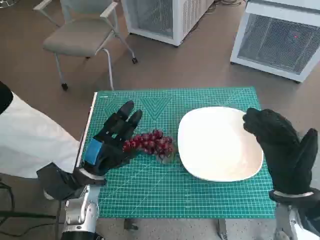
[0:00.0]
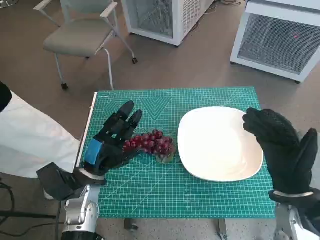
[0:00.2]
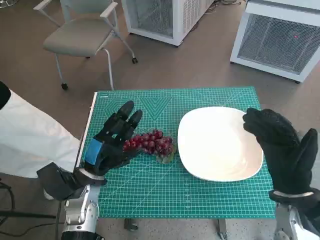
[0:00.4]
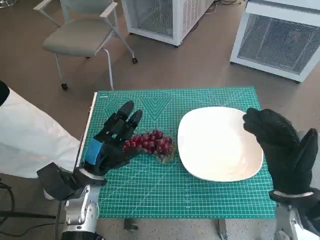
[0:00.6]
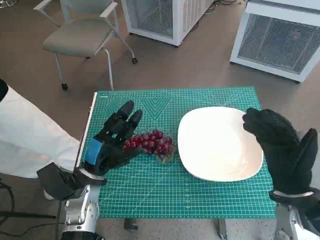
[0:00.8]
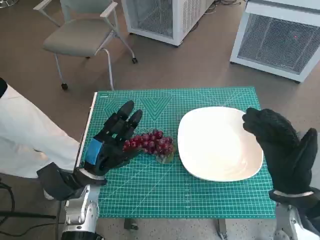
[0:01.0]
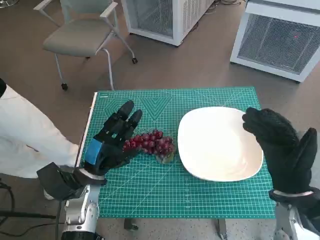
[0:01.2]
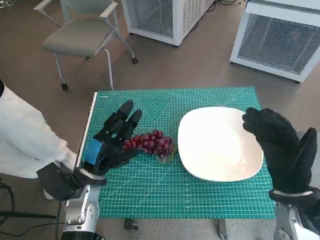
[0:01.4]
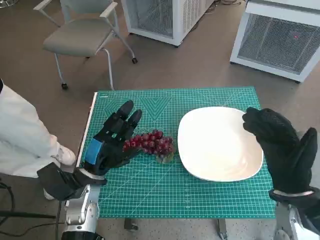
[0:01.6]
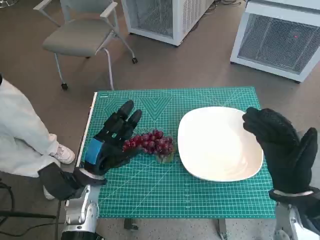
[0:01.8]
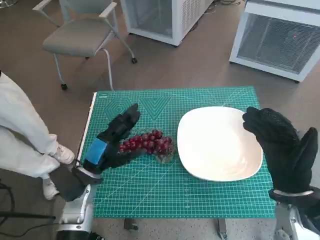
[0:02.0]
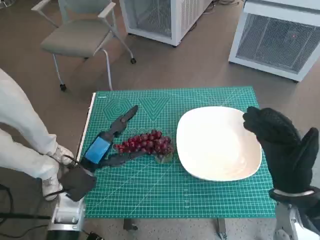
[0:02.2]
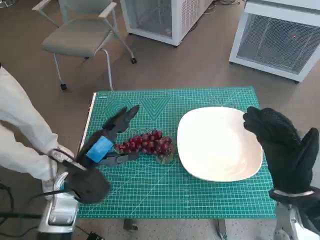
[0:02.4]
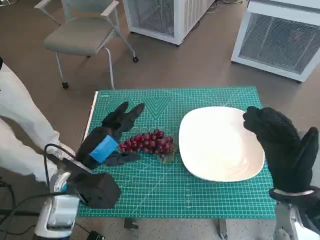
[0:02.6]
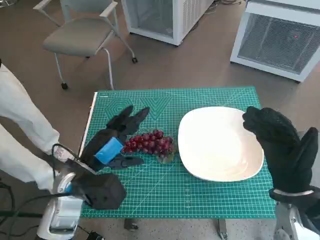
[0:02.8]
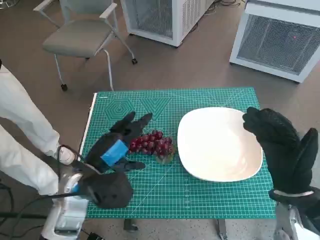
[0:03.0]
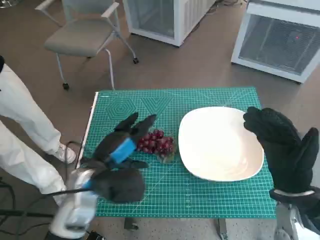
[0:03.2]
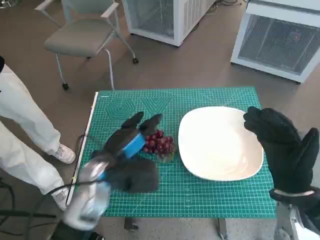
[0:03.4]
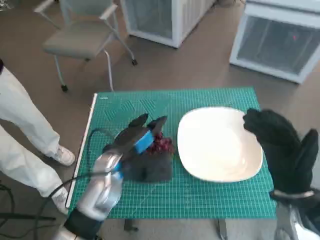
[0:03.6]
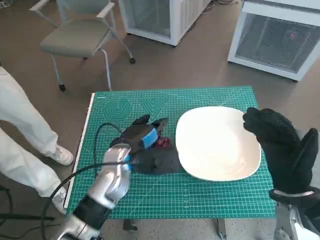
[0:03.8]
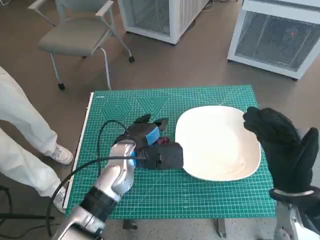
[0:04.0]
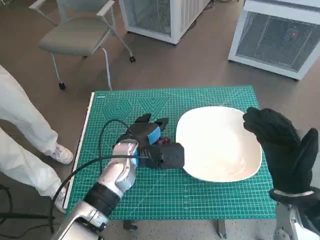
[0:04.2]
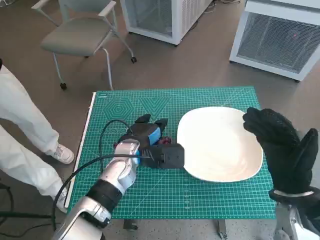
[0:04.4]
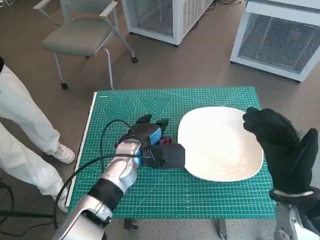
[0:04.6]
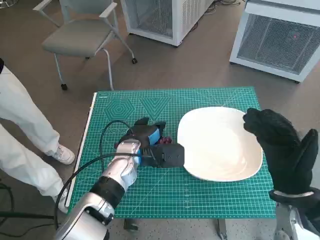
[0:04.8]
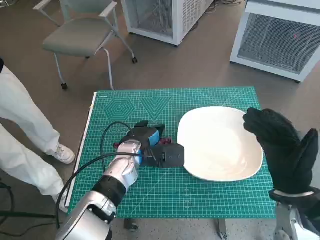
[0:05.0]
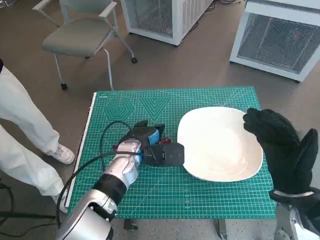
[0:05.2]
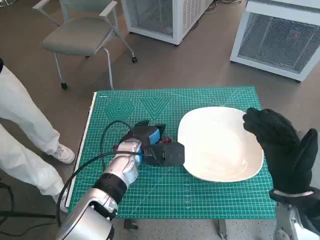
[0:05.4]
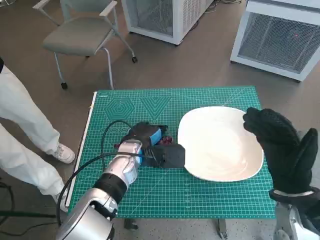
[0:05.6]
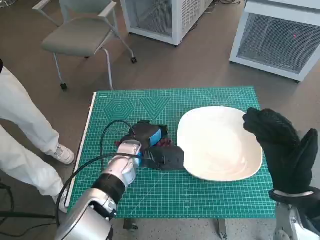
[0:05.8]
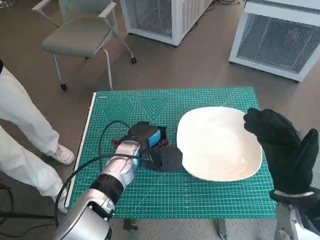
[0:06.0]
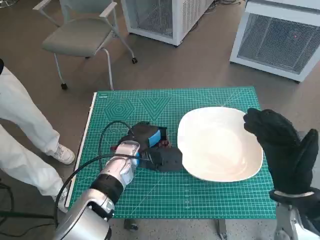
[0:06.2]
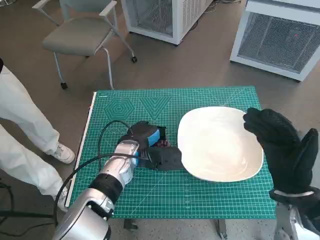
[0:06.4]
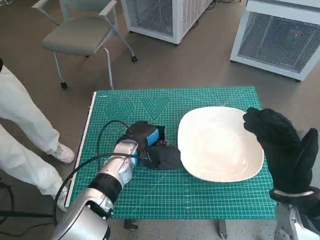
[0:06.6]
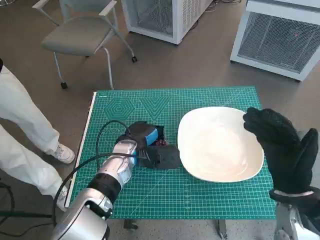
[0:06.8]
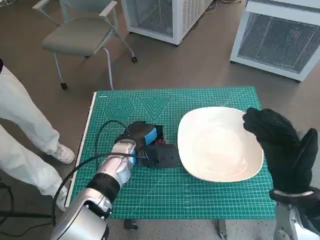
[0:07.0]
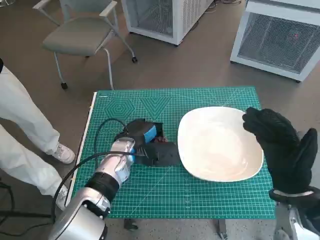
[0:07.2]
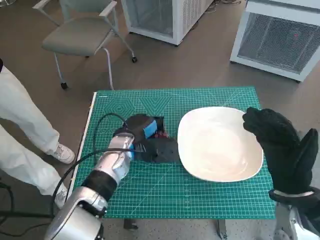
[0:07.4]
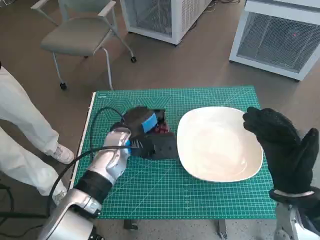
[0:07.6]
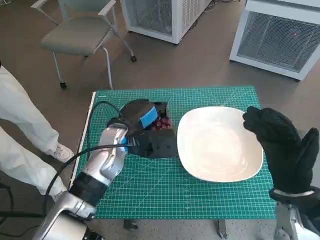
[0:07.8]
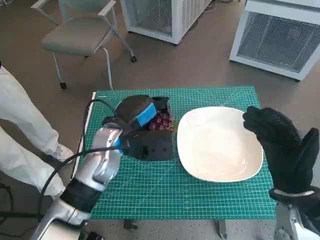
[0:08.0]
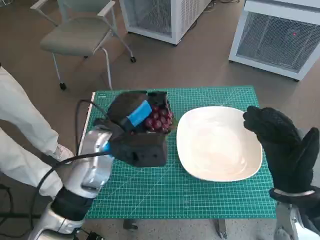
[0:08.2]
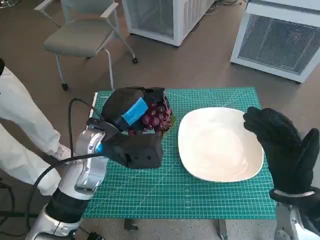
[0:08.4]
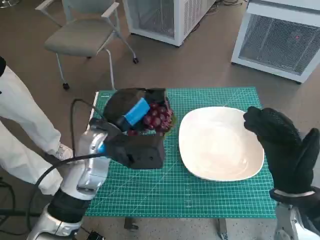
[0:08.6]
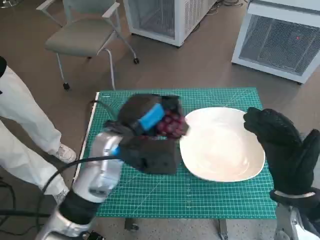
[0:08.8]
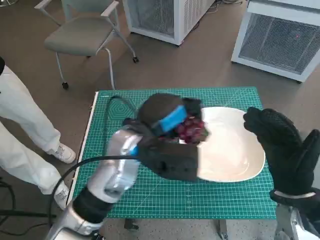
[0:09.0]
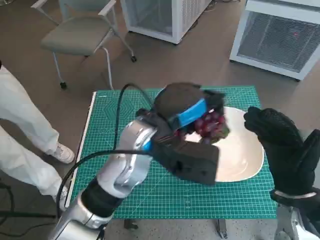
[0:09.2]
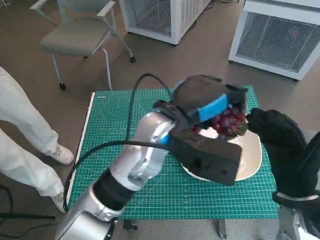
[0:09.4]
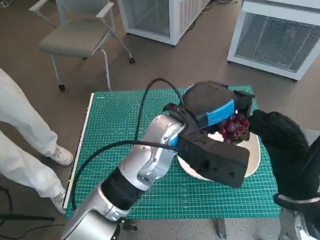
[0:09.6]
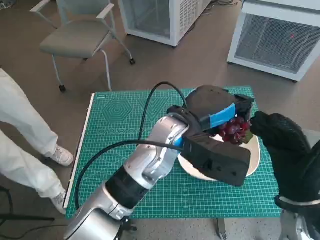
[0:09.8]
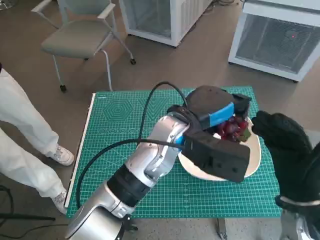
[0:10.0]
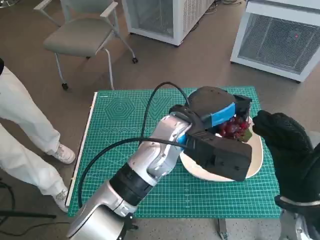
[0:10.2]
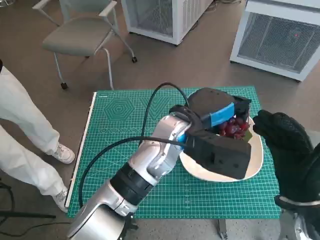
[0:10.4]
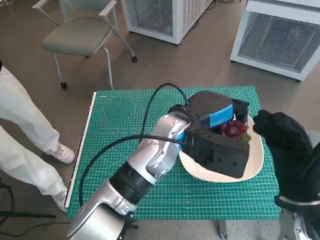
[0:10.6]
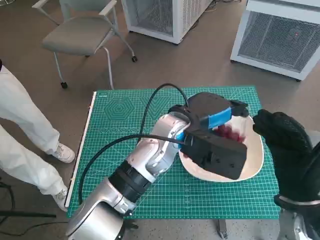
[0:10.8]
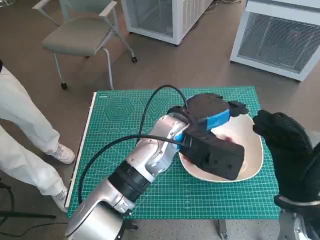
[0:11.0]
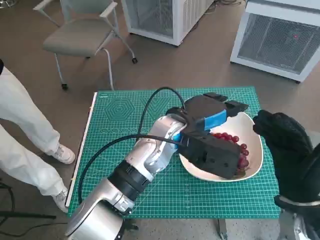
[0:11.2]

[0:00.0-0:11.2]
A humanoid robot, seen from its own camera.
Task of the whole recording: Pick up the grapes and put them on the plate.
Step, 0:00.0 to 0:05.8: Grasp the grapes with left hand.
Step, 0:06.2 to 0:10.6: Place the grapes in the plate with left hand.
0:01.6 to 0:03.2: The left hand shifts some 5 cm upward.
0:03.2 to 0:04.8: The left hand heads forward and to the right, covering about 10 cm.
0:04.8 to 0:06.4: Neither hand changes place.
0:06.4 to 0:08.0: The left hand is displaced upward by some 10 cm.
0:08.0 to 0:09.6: The left hand shifts about 15 cm to the right and upward.

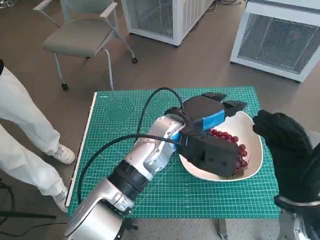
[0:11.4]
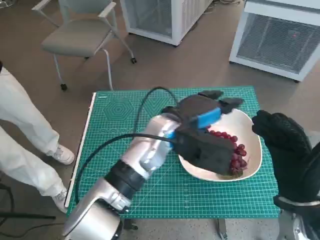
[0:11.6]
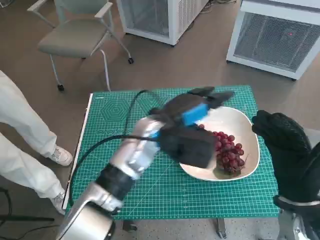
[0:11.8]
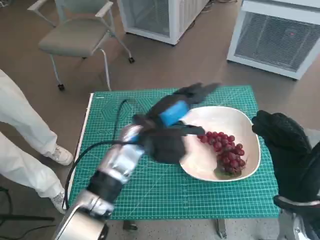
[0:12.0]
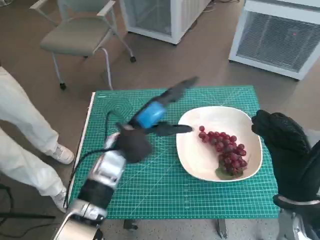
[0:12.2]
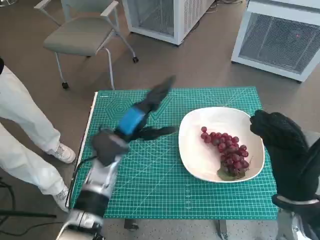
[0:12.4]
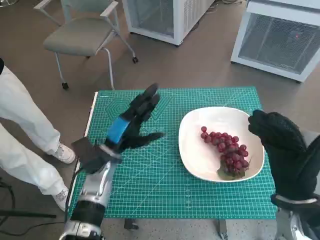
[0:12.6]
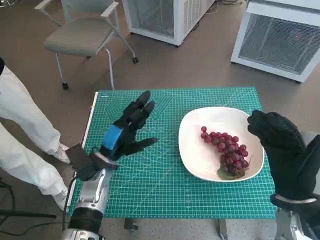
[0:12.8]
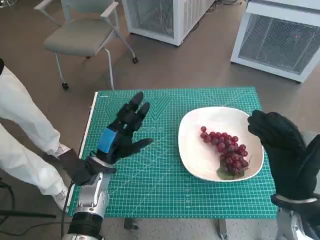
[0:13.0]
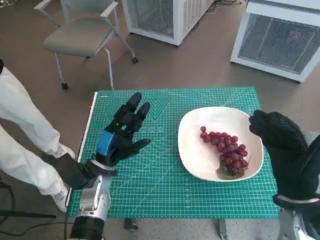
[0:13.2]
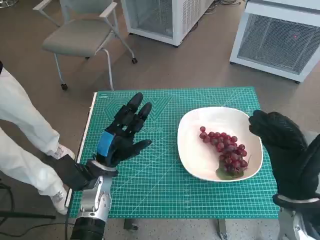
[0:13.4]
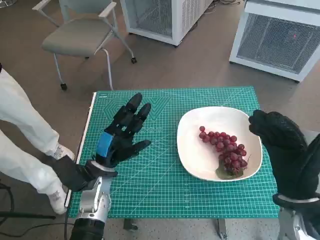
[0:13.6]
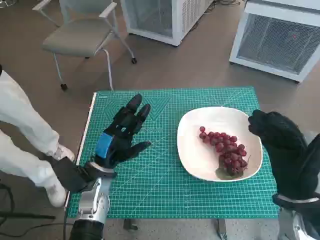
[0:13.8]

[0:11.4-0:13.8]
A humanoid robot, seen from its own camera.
Task of the whole recording: Pick up the grapes and put them on the plate.
0:11.4 to 0:12.6: The left hand shifts about 20 cm to the left and downward.
0:12.6 to 0:13.8: There are only small adjustments of the hands.

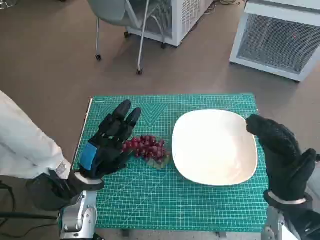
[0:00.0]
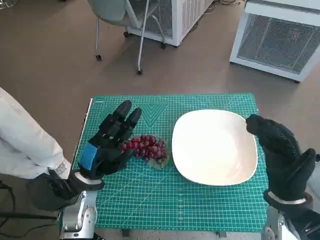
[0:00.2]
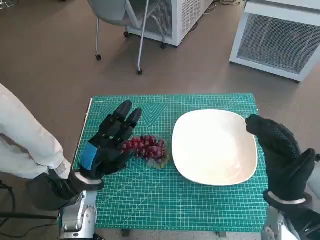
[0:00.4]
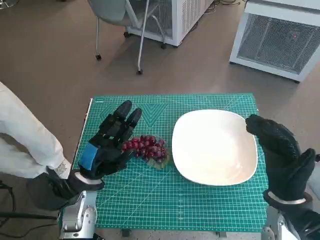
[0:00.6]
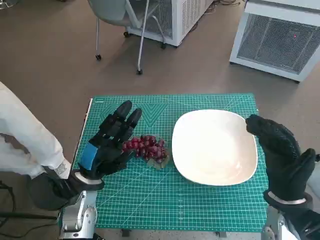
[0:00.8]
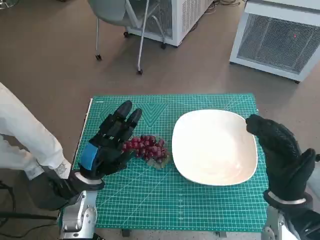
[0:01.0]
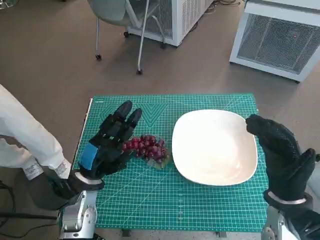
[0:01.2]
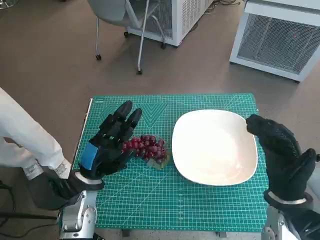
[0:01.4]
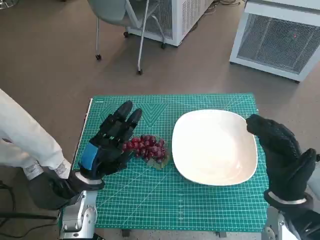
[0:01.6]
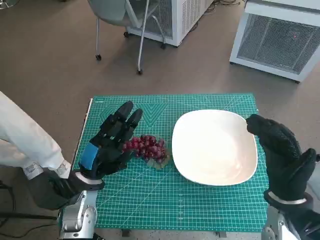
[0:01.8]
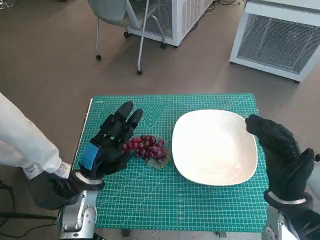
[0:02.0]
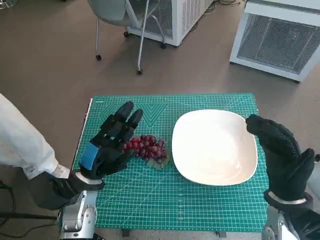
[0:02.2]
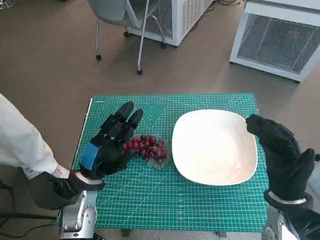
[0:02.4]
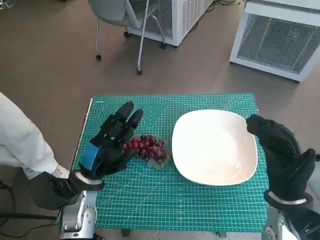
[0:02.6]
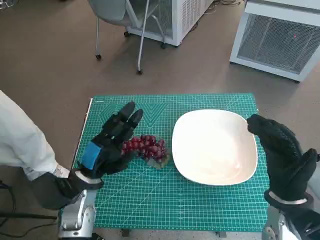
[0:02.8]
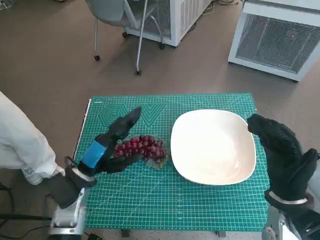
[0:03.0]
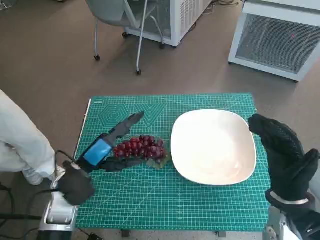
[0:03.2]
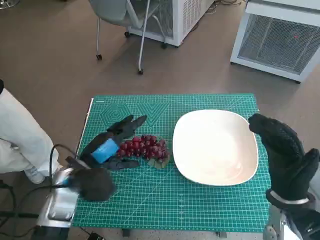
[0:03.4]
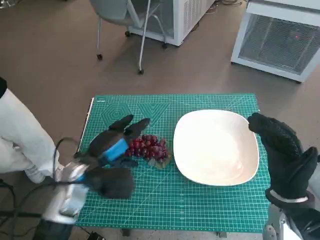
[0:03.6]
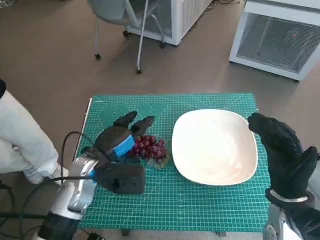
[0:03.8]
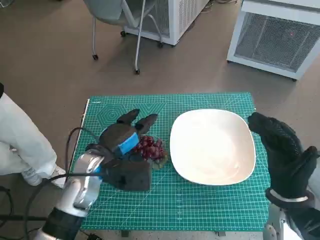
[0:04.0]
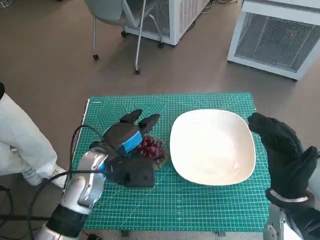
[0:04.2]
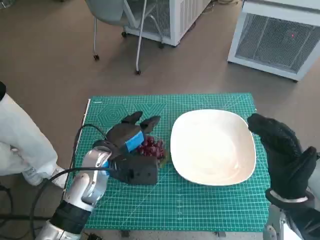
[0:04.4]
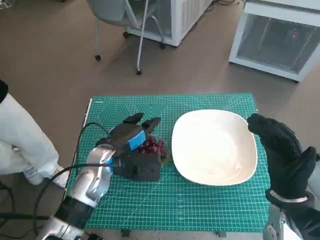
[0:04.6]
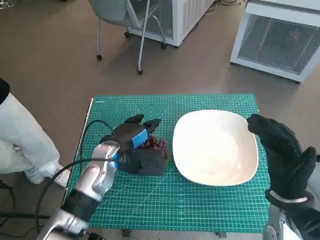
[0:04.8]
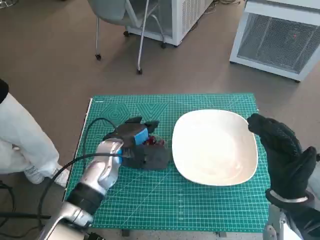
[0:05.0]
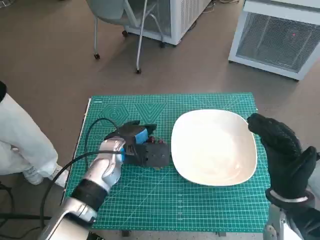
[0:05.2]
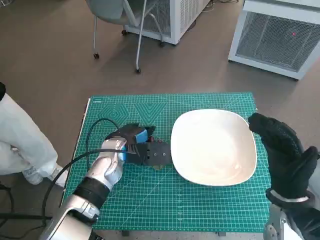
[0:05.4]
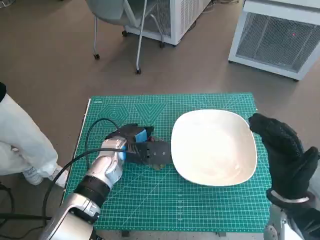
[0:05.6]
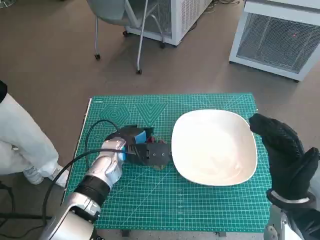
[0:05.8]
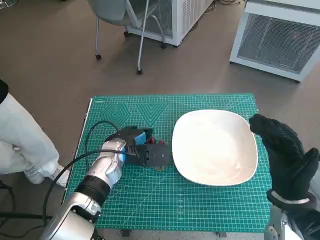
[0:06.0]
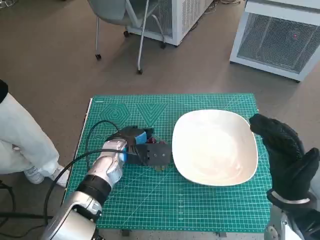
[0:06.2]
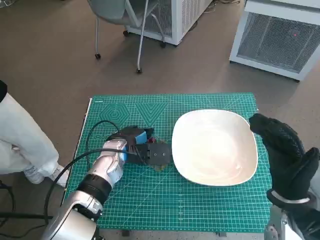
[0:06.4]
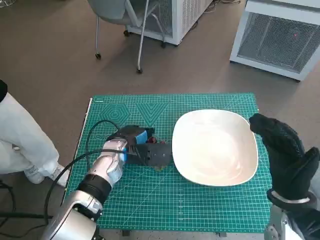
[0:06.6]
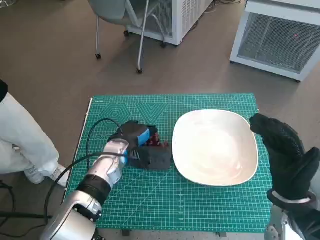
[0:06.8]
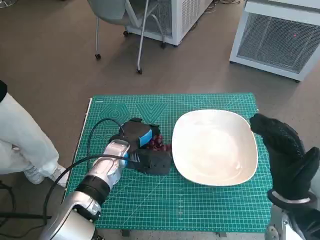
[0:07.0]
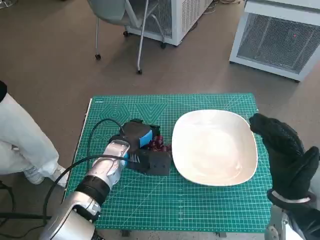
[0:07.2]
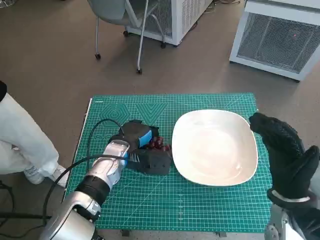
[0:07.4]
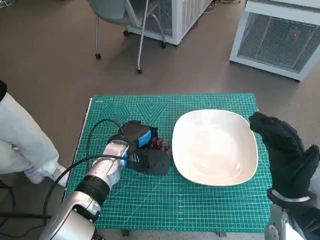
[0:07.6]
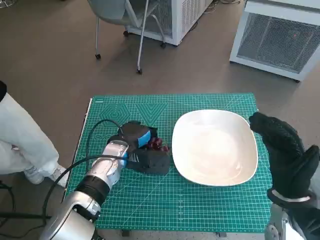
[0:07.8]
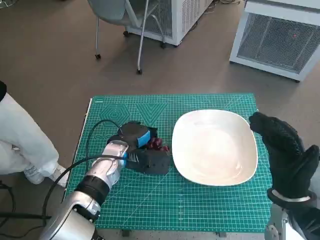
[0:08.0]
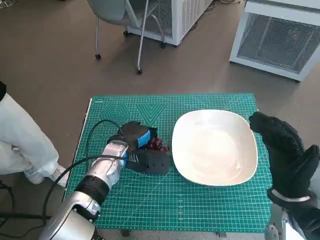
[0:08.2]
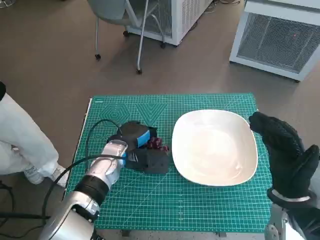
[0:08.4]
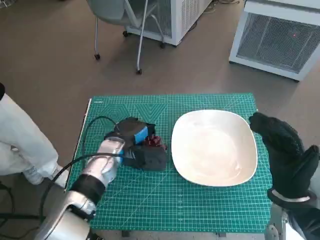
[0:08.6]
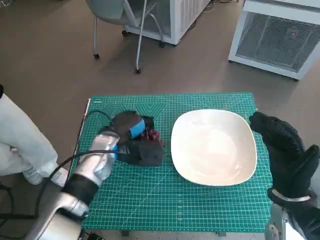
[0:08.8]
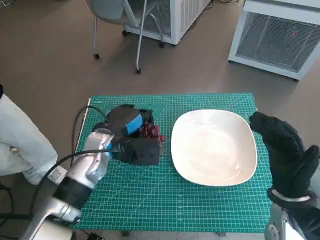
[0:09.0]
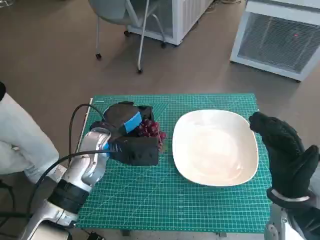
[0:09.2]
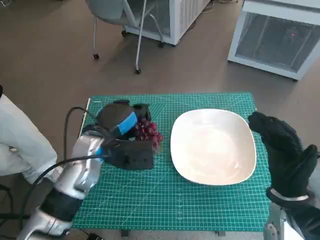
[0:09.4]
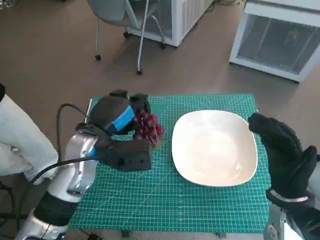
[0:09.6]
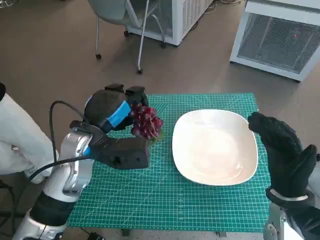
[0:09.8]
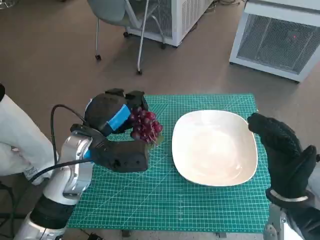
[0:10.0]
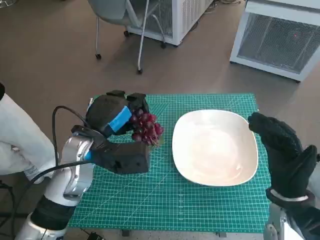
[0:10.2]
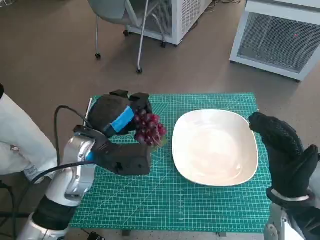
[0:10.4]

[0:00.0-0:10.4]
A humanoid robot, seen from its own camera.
Task of the whole recording: Pick up the grapes and put them on the plate.
Step, 0:00.0 to 0:07.6: Grasp the grapes with left hand.
0:01.4 to 0:03.0: There are only small adjustments of the hands.
0:03.0 to 0:04.4: The left hand goes about 5 cm to the right.
0:04.4 to 0:06.0: The left hand changes place by roughly 5 cm.
0:06.0 to 0:07.4: The hands make only small movements.
0:07.4 to 0:09.0: The left hand changes place by some 5 cm.
0:09.0 to 0:10.4: The left hand ends up about 5 cm from where it was.
